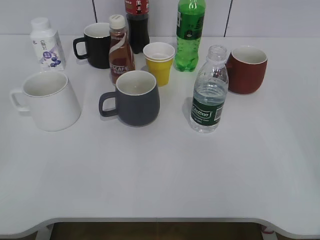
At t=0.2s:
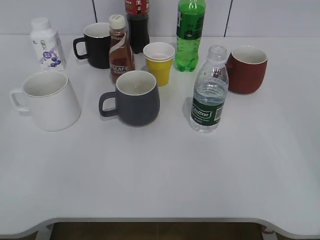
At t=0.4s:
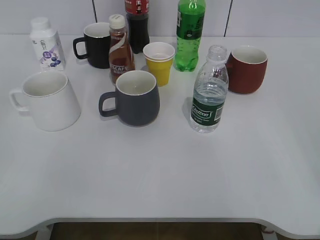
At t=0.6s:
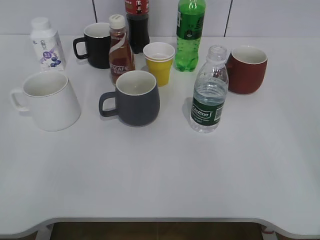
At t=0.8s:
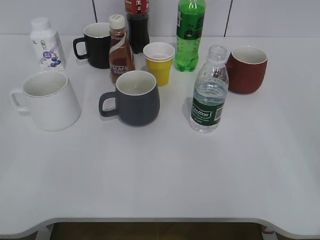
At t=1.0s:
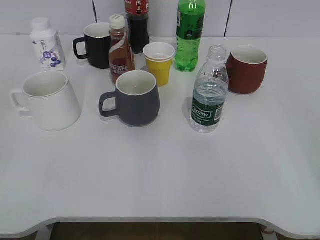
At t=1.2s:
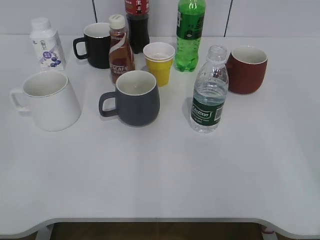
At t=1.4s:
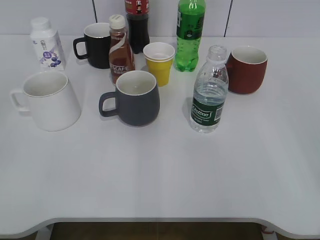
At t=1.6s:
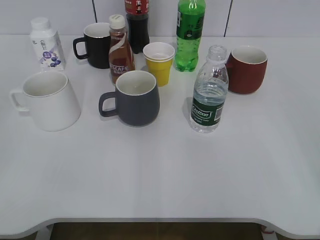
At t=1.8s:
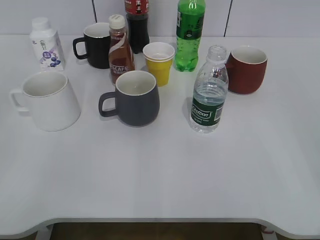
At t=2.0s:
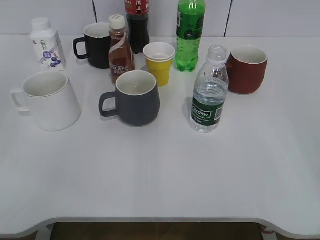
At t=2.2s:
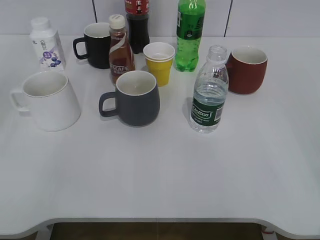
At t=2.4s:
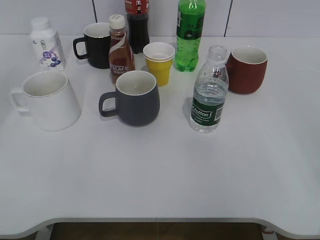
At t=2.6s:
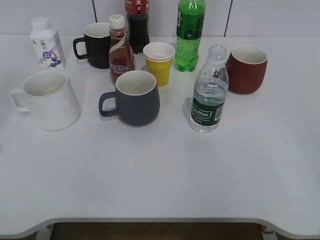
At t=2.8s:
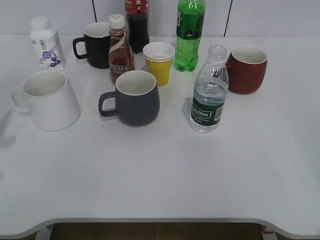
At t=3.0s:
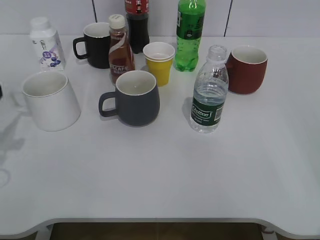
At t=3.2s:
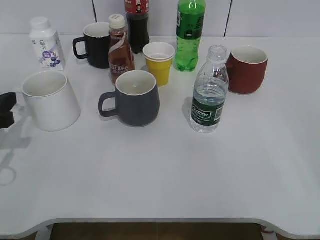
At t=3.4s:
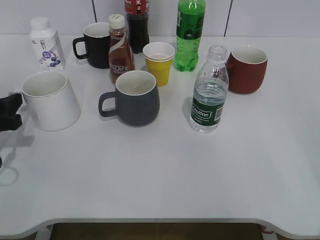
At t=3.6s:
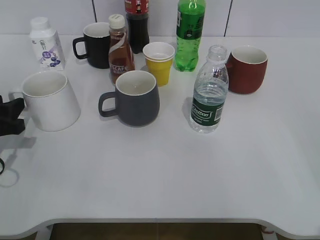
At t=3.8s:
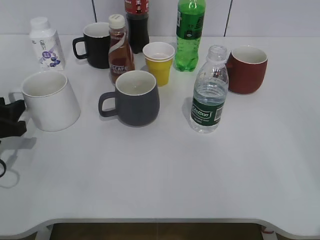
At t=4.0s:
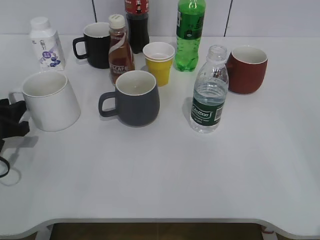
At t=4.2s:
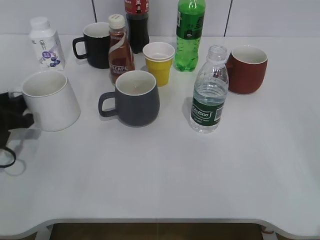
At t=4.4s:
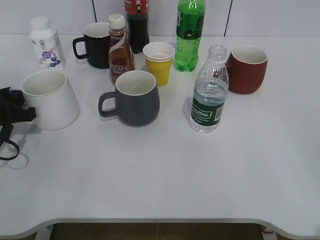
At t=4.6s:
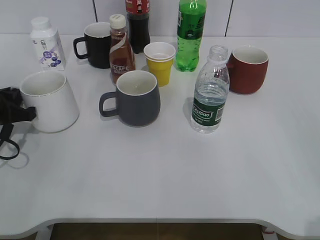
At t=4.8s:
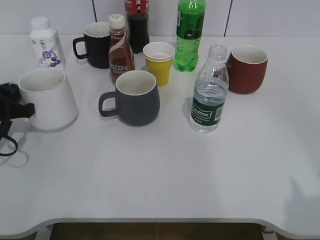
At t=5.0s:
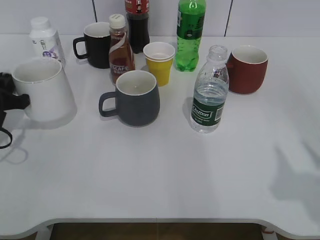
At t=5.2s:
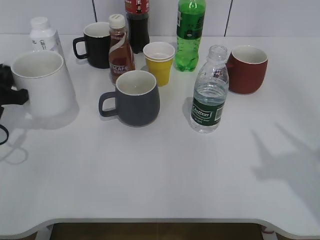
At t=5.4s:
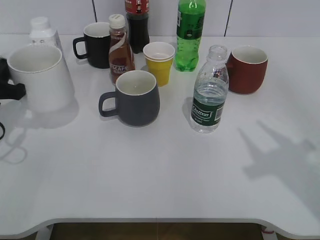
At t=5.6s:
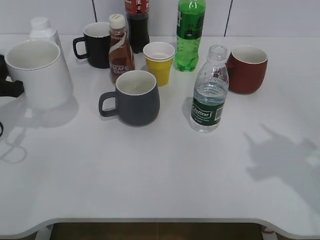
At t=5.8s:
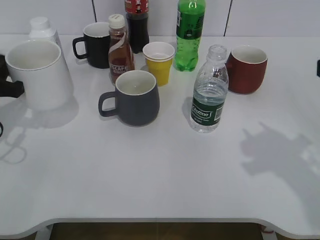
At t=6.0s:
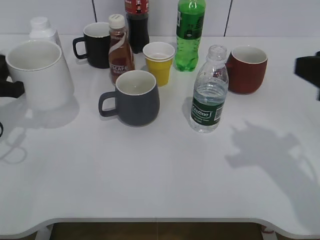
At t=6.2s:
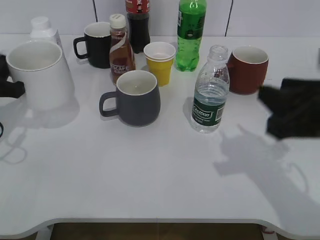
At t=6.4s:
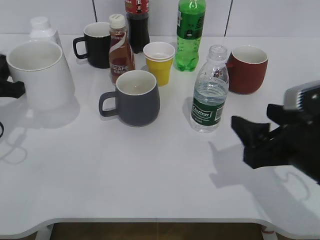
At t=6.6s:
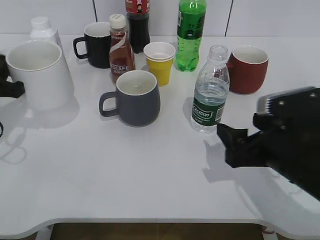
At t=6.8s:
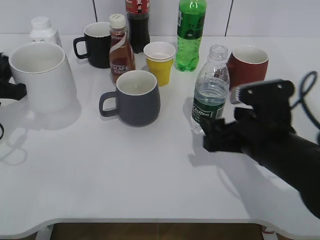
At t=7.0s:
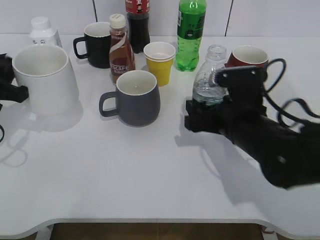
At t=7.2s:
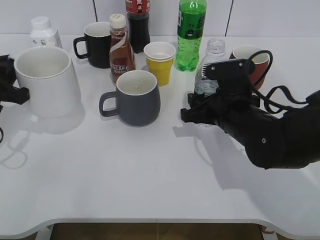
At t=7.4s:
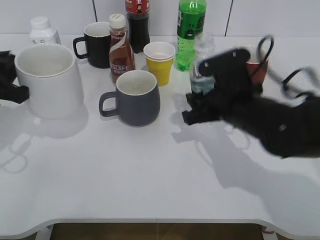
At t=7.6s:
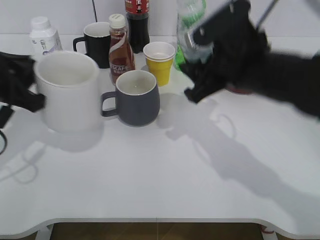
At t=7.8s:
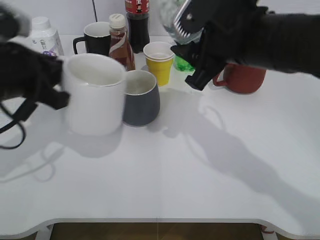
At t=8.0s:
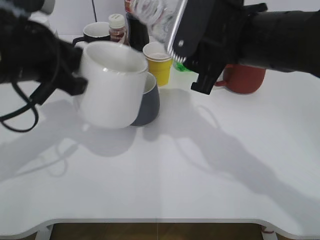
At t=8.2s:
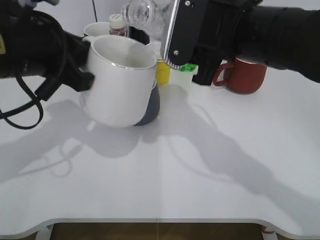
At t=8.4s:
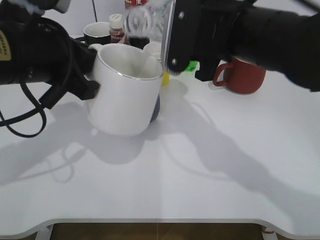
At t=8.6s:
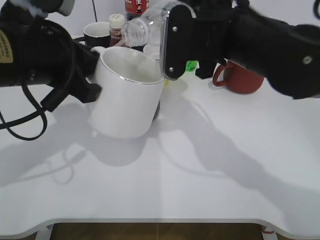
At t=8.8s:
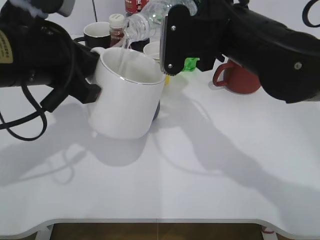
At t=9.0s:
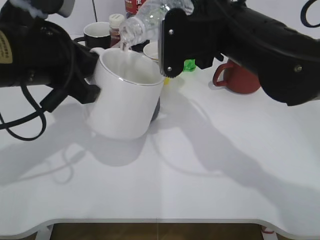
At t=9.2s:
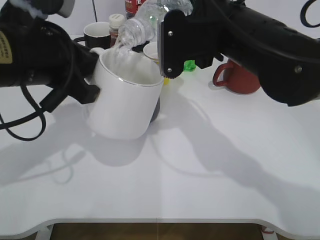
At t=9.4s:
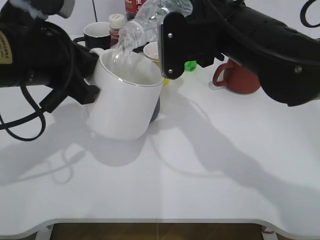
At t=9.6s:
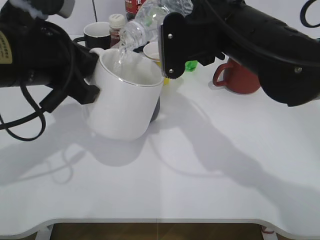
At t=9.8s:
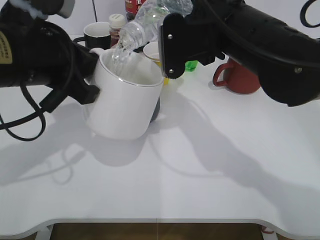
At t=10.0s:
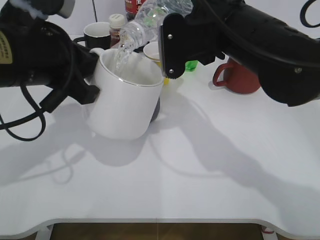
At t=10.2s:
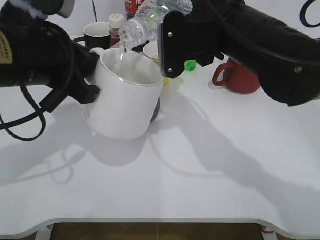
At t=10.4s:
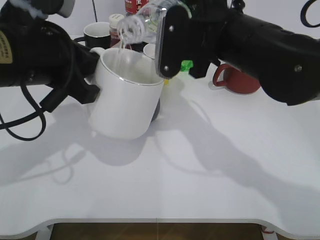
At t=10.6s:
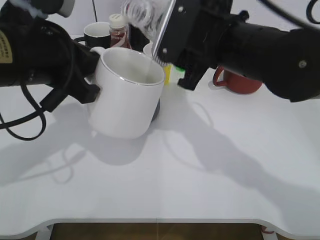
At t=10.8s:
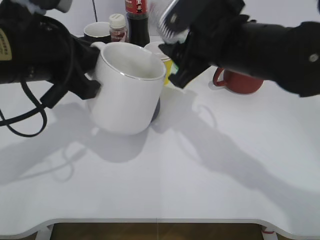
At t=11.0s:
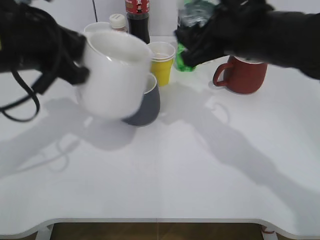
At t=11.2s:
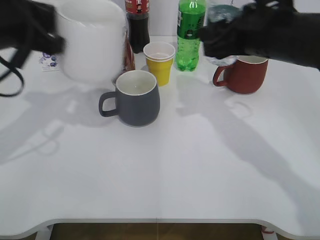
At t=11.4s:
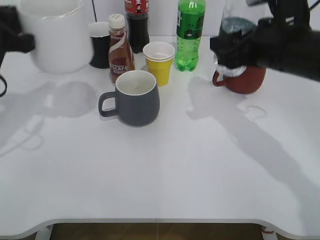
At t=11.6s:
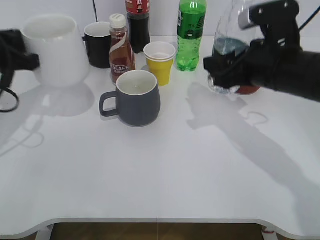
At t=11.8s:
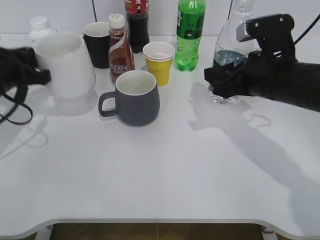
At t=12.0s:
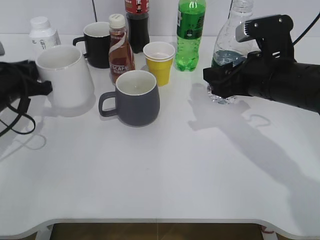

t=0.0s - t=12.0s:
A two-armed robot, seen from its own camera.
Step, t=1.8s - t=4.4s: Grasp the white cup with left gripper.
Step, t=4.6s - t=6.2s: Lift the white cup with left gripper.
Step, t=6.4s - t=7.0s: Grasp the bottle with water with right gripper.
Step, t=7.2s - t=10.4s: Pour the water from bottle to cup with right gripper.
t=1.6s - t=3.0s: The left gripper is displaced forward by roughly 20 cm.
t=3.0s - t=4.4s: The left gripper is displaced downward and forward by some 10 cm, and closes.
t=4.4s - t=6.0s: The left gripper travels upward by some 5 cm; the right gripper goes roughly 20 cm forward, and closes up.
t=6.0s - t=7.6s: The right gripper moves to the left, forward and downward, about 15 cm, and opens up, while the left gripper moves about 5 cm.
t=7.6s - t=9.0s: The right gripper travels upward by roughly 5 cm. The left gripper moves to the right and upward, some 10 cm.
t=9.0s - t=10.4s: There are only small adjustments of the grippers.
t=10.4s - t=12.0s: The left gripper is displaced downward, to the left and forward by some 20 cm. Meanwhile the right gripper goes roughly 10 cm to the right and downward.

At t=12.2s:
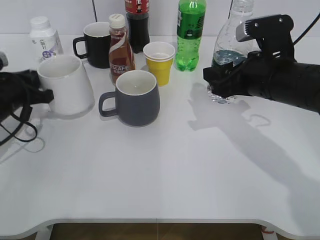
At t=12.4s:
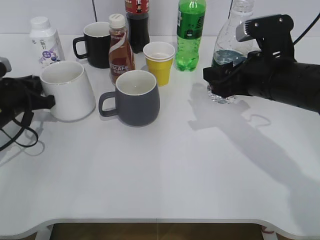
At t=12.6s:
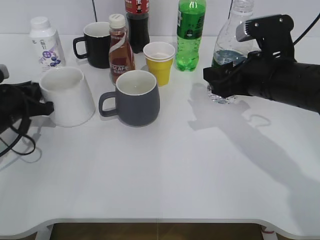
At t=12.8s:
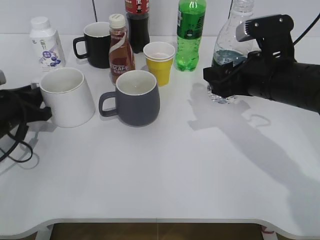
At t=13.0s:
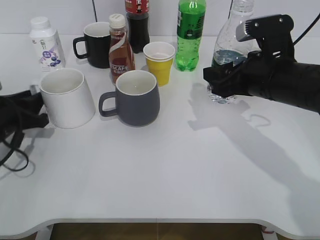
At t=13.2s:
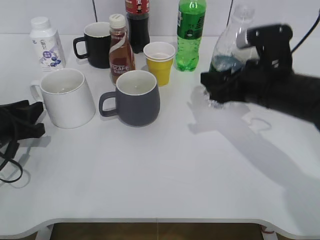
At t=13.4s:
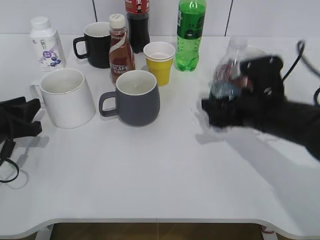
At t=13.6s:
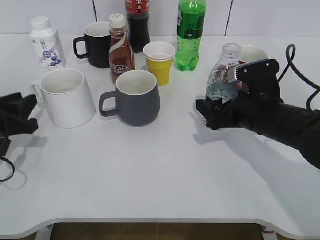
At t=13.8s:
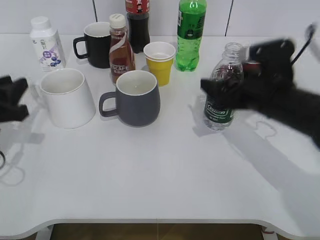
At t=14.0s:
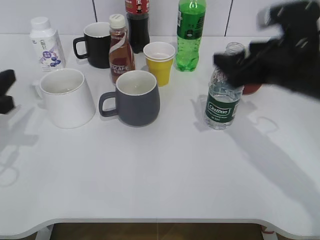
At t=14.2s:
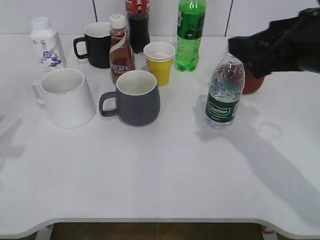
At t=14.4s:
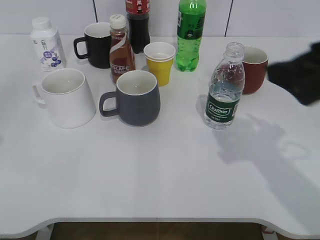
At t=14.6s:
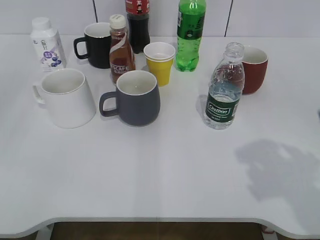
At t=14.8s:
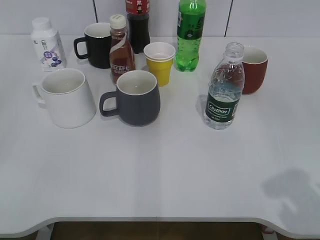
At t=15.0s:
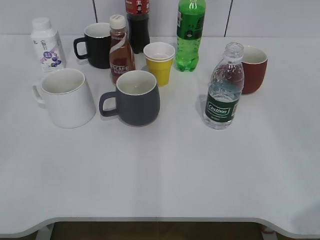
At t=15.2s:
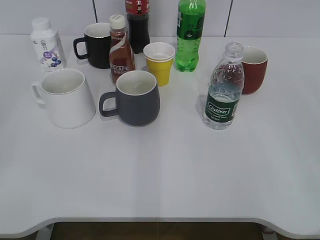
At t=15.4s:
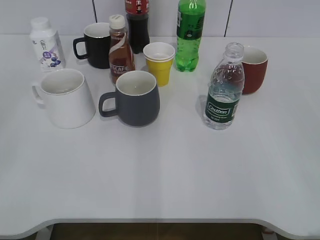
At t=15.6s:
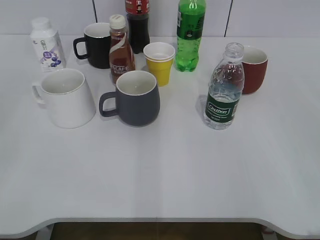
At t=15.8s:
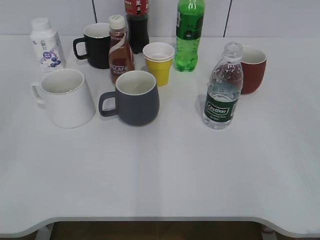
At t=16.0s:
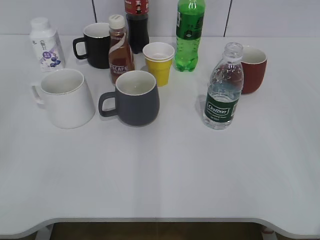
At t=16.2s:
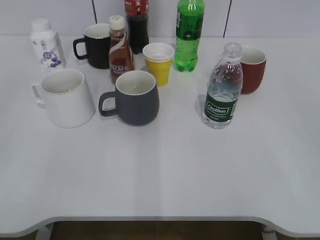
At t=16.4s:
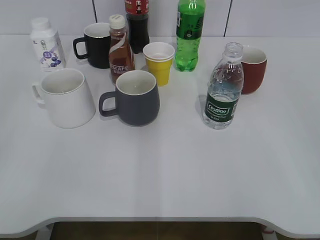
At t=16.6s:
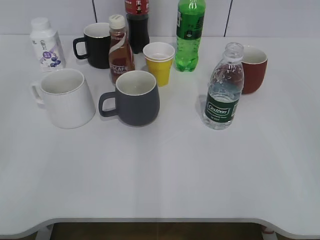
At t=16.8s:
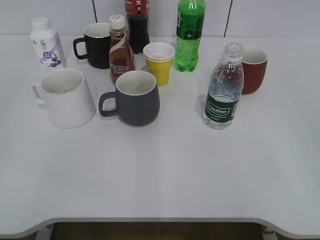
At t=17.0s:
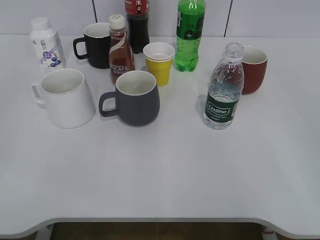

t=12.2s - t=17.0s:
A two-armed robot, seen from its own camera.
Step, t=13.0s - t=13.4s: Place the water bottle on the table with right gripper.
t=12.2s - t=13.8s: The left gripper is displaced backward by some 5 cm, and opens up; the right gripper opens its fingers.
t=13.8s - t=15.4s: The right gripper travels backward, to the right and upward by approximately 35 cm, while the left gripper travels backward and upward by some 25 cm, and opens up.
